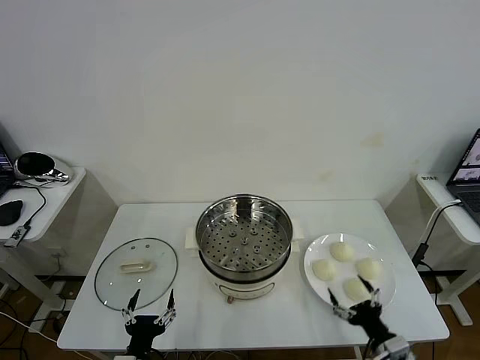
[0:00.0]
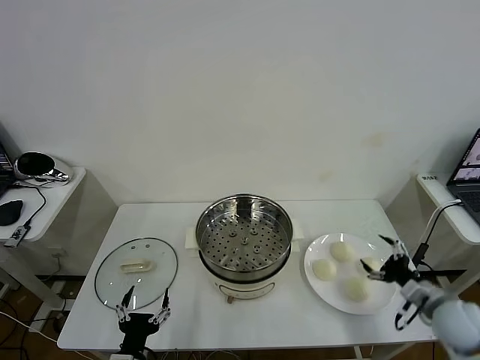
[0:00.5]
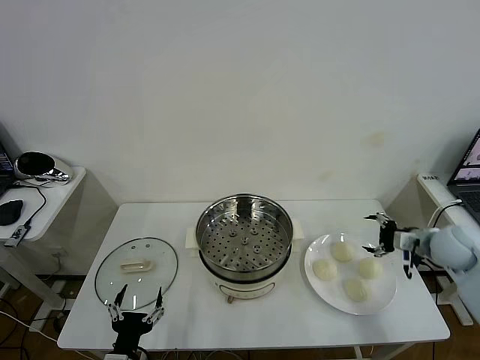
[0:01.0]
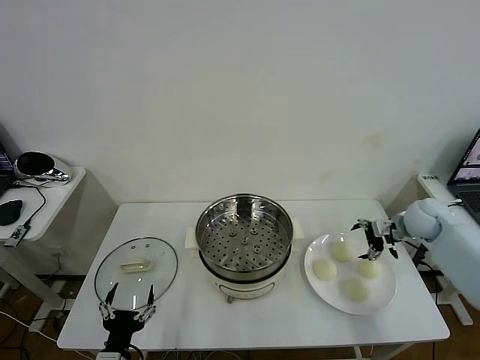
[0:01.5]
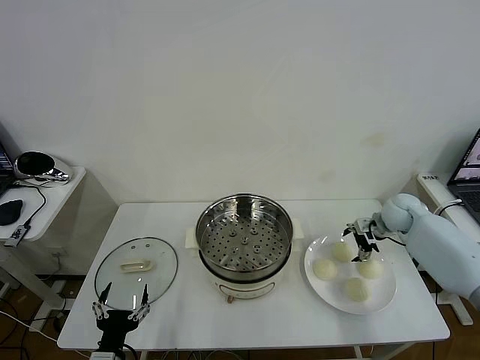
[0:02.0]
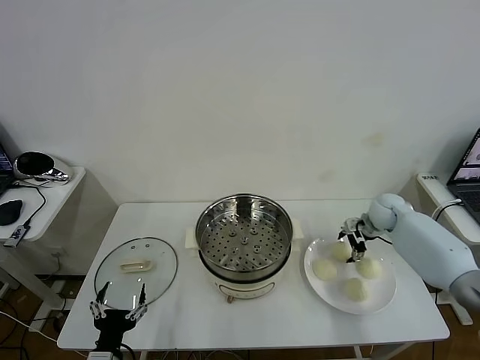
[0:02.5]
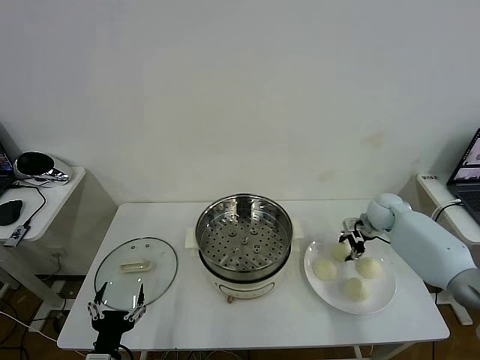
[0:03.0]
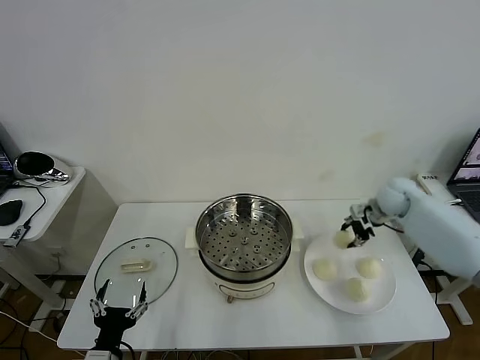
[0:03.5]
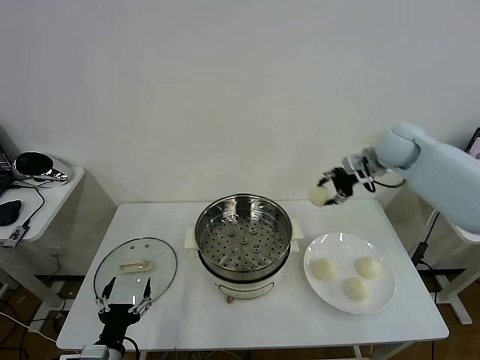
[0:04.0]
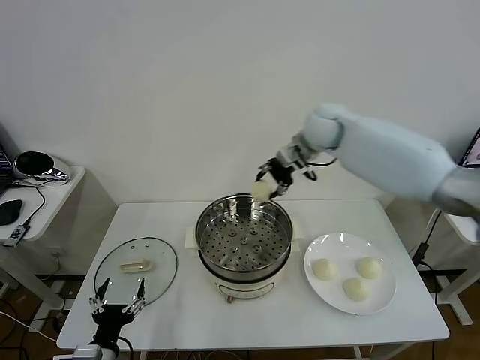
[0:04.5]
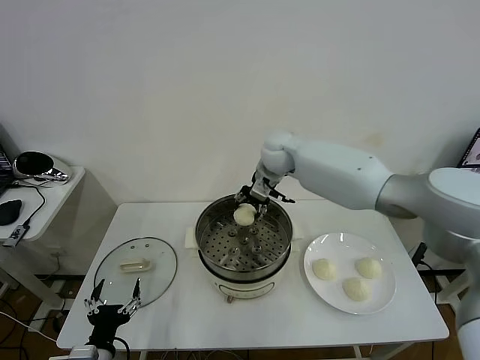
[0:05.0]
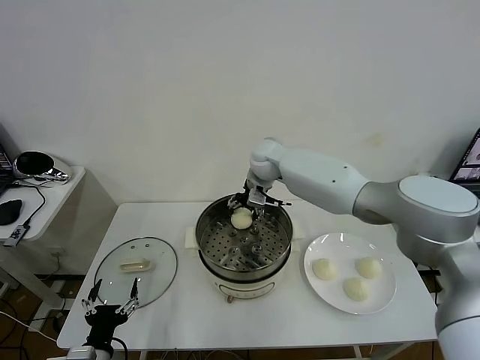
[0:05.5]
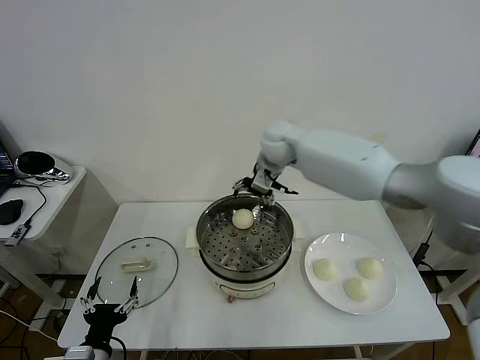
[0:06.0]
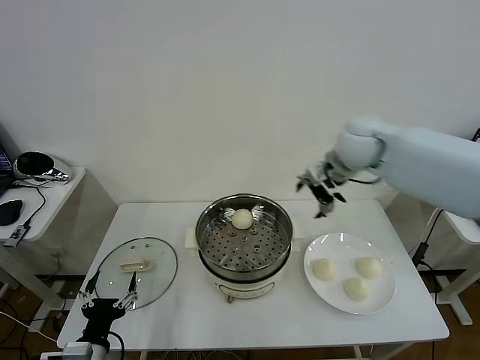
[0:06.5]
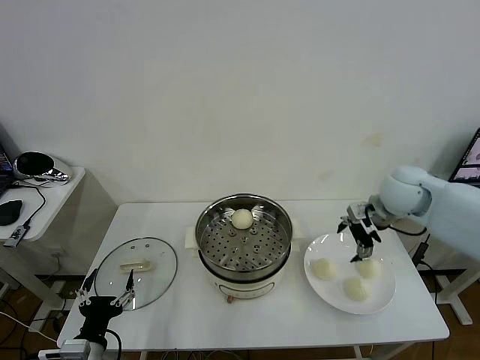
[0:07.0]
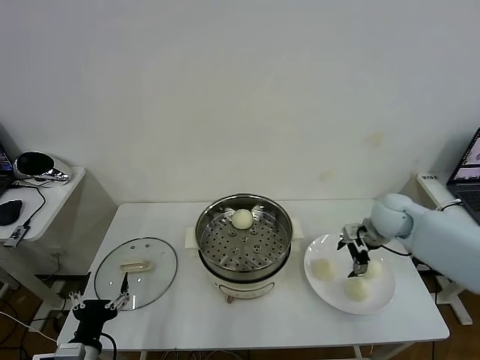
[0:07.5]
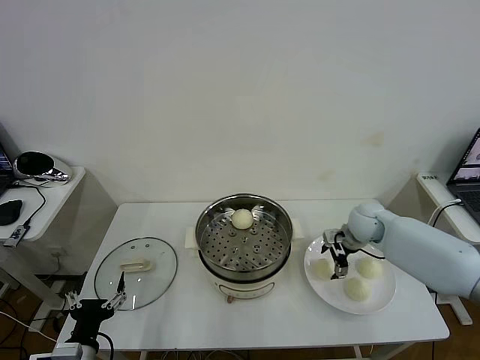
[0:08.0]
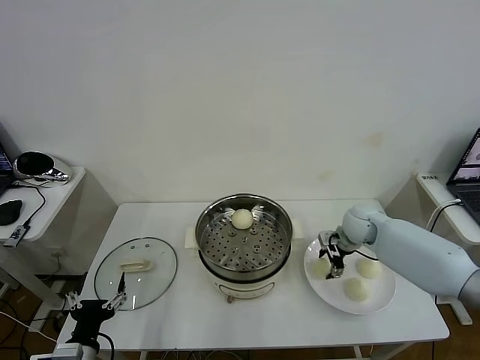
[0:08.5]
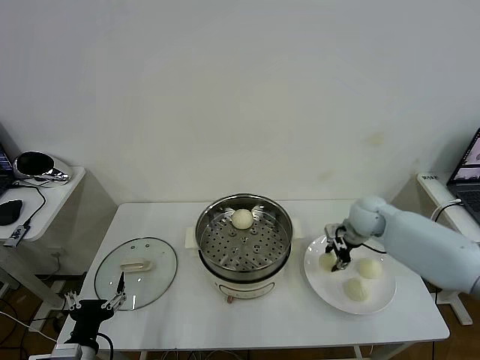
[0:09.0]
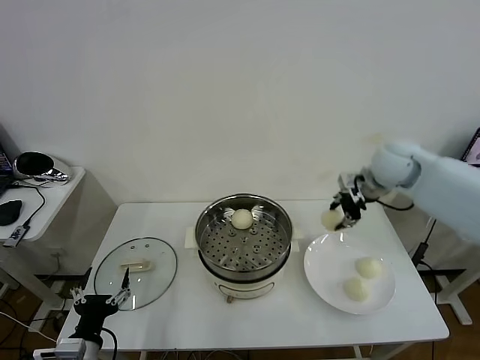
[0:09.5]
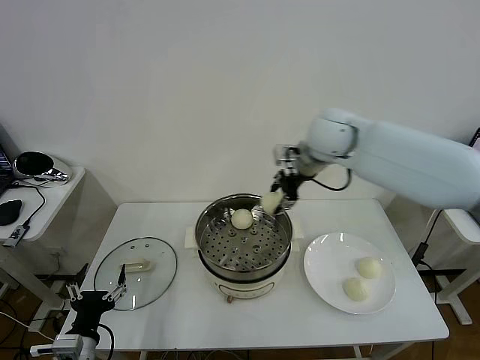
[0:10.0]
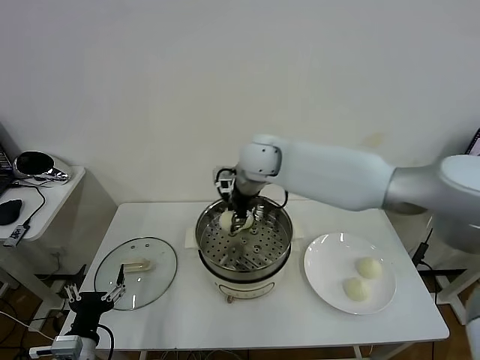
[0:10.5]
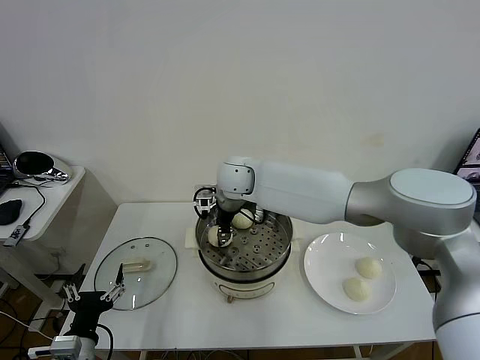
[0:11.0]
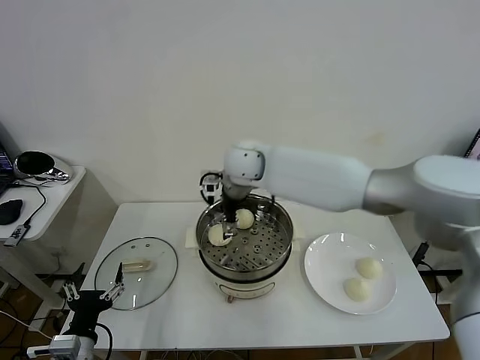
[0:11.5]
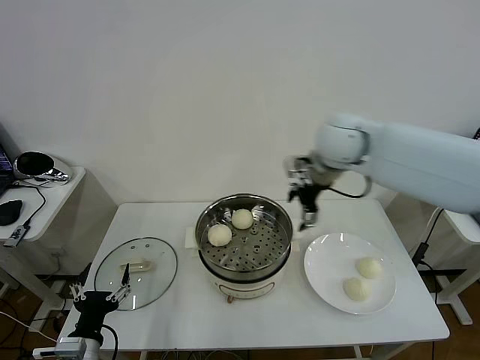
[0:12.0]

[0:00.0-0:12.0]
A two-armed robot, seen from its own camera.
Task of the whole recording: take steamed baozi put them in steamer then cover it.
Step, 0:00.0 to 0:02.5: Grasp the baozi in the plate with right gripper.
Step, 0:03.0 to 0:05.5: Place the baozi on the steamer with right gripper.
Step, 0:06.0 to 0:08.5: Grasp the baozi in the plate with right gripper.
Step, 0:09.0 to 0:11.0: Place the baozi on the steamer with right gripper.
0:02.0 to 0:04.0: The right gripper goes some 25 cm upward and to the left, and closes.
0:04.0 to 0:06.0: The right gripper travels to the left by approximately 20 cm, and opens up.
0:06.0 to 0:08.0: The right gripper goes approximately 30 cm downward and to the right.
0:08.0 to 0:10.0: The right gripper travels upward and to the left by some 30 cm, and closes its fingers.
0:10.0 to 0:12.0: The right gripper travels to the right by approximately 10 cm, and opens its fingers.

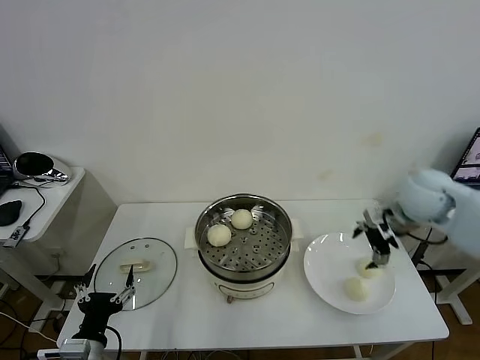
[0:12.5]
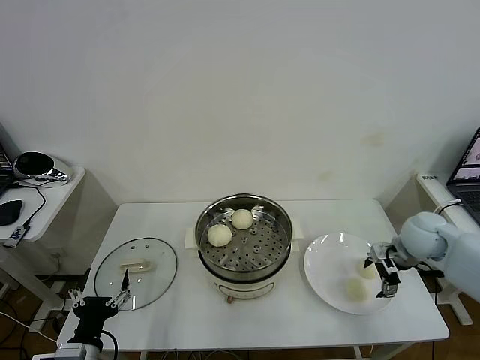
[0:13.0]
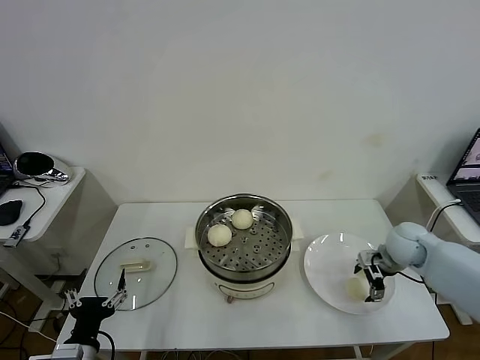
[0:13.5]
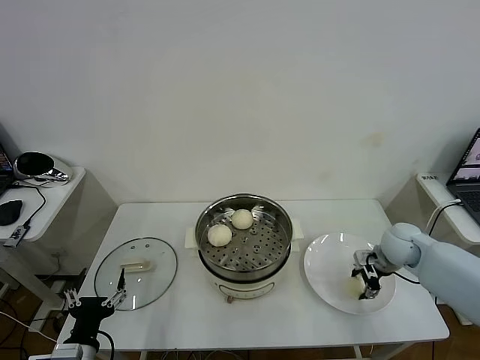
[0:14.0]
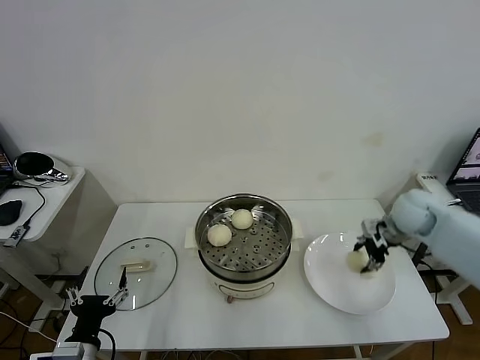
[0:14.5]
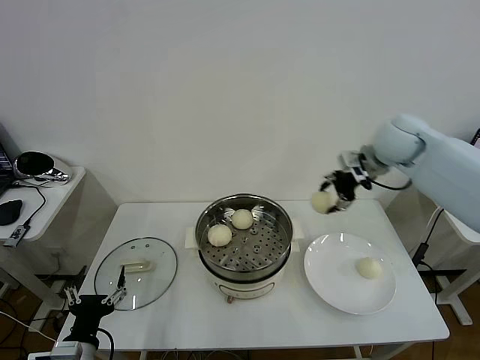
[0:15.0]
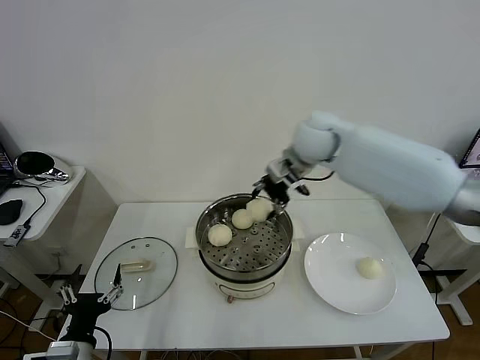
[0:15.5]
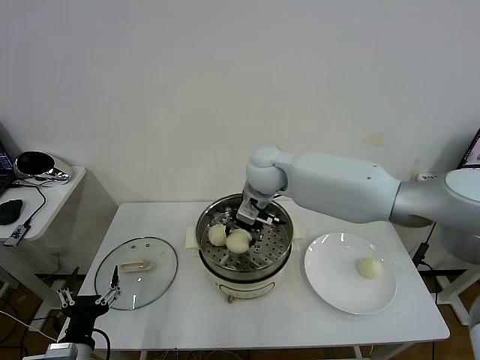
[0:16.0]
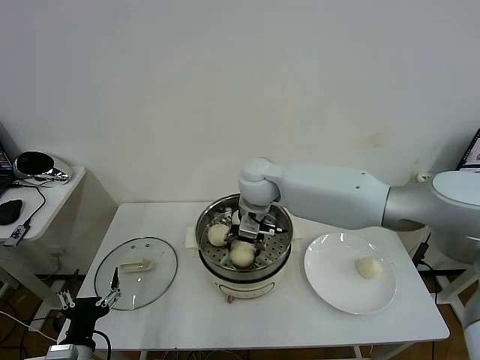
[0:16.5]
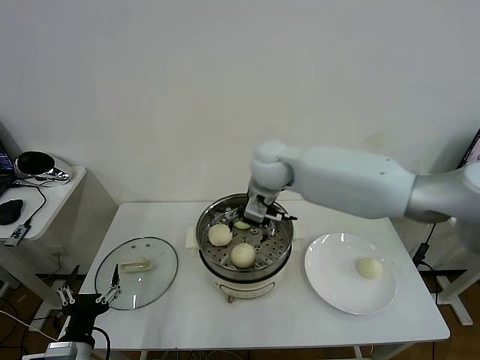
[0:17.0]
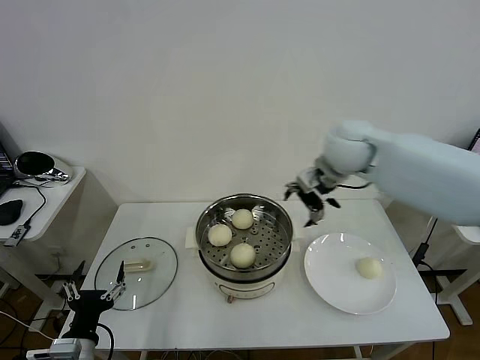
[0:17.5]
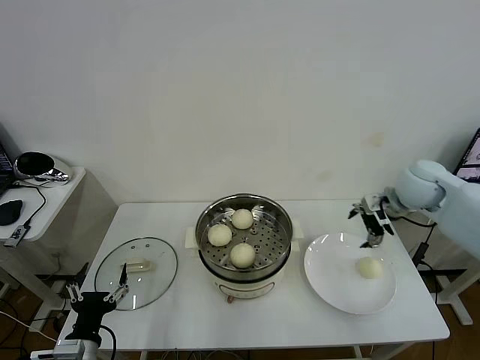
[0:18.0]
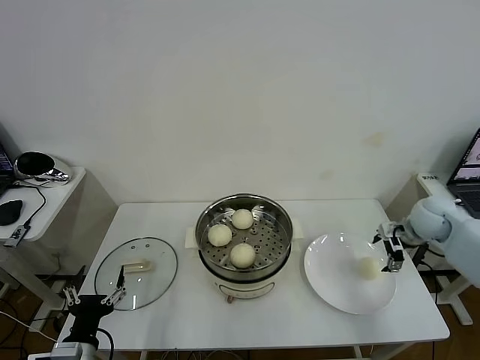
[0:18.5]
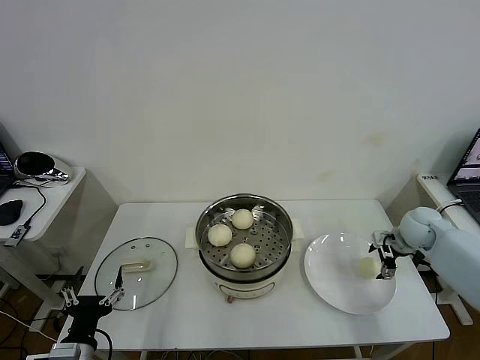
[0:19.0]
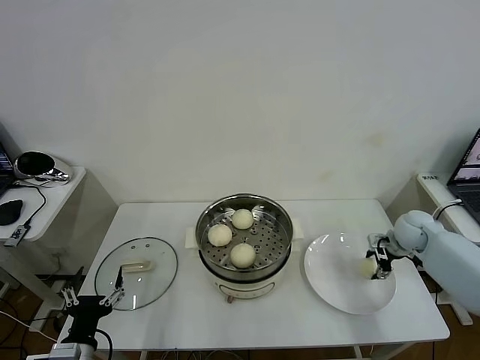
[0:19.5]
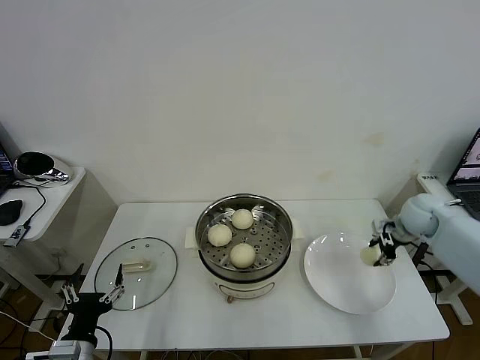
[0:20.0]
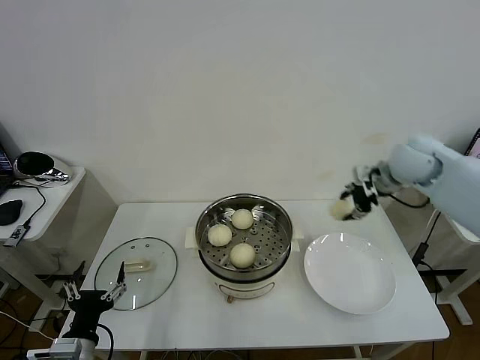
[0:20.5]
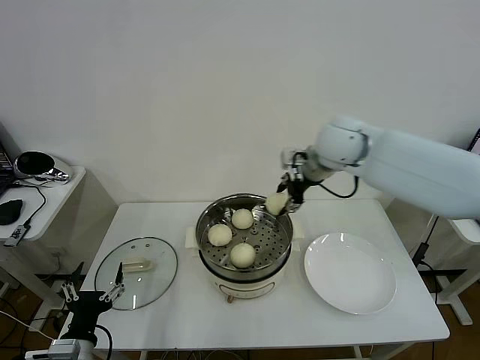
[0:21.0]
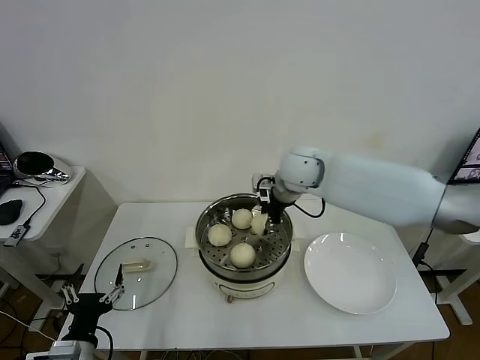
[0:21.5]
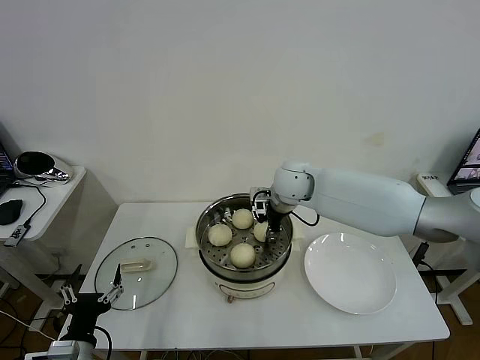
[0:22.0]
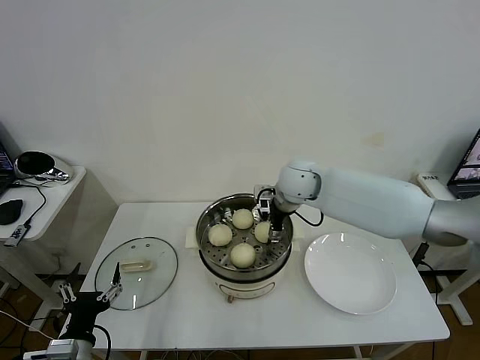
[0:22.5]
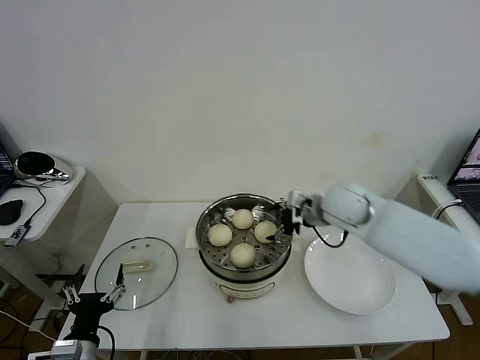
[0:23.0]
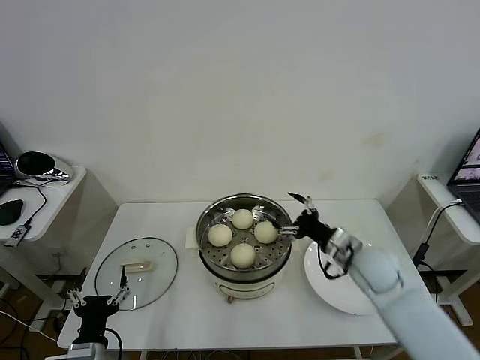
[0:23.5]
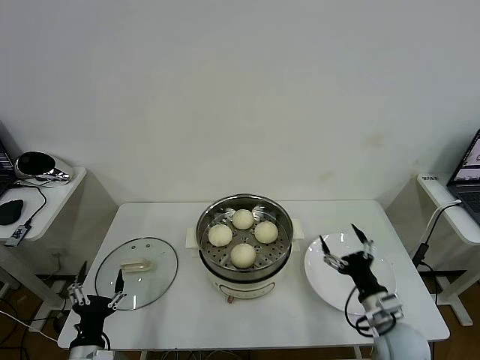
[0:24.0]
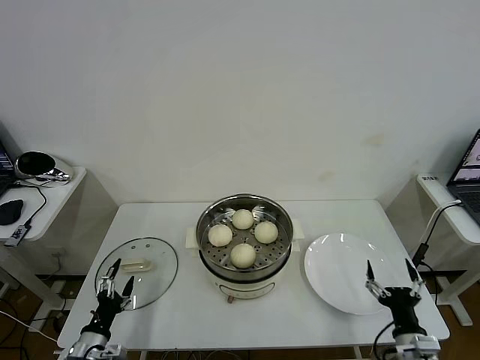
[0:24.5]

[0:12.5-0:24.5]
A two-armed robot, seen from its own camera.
Task of the whole recording: take steamed baozi put them in steamer then cover it.
Step, 0:12.5 to 0:14.0: Grasp the baozi in the plate with right gripper.
Step, 0:14.5 to 0:16.5: Place the baozi on the steamer with right gripper.
Step, 0:17.5 to 0:19.5: Grasp the baozi in the plate with right gripper.
Step, 0:20.0 to 0:22.5: Place the baozi on the steamer with right gripper.
0:12.5 to 0:14.5: The right gripper travels downward and back again, about 15 cm each way, and closes up.
0:14.5 to 0:16.5: The right gripper heads to the left, covering roughly 35 cm, and opens its fingers.
0:16.5 to 0:18.5: The right gripper travels to the right by about 40 cm.
0:18.5 to 0:20.5: The right gripper heads upward and to the left, covering approximately 20 cm, and closes.
0:20.5 to 0:22.5: The right gripper is displaced to the left by roughly 20 cm, and opens its fingers.
0:22.5 to 0:24.5: The left gripper moves downward, about 10 cm; the right gripper goes about 50 cm backward, downward and to the right.

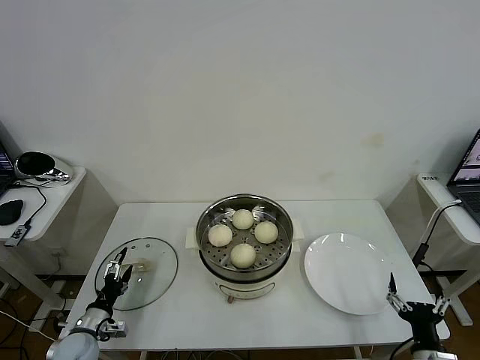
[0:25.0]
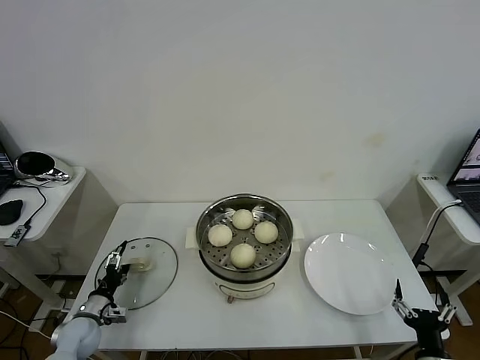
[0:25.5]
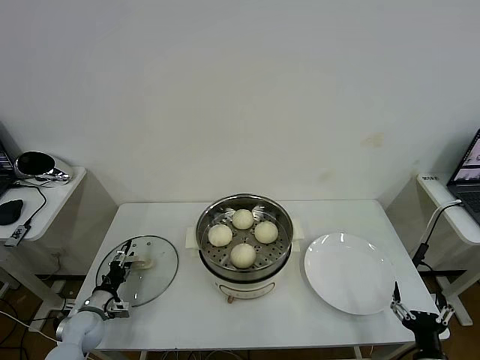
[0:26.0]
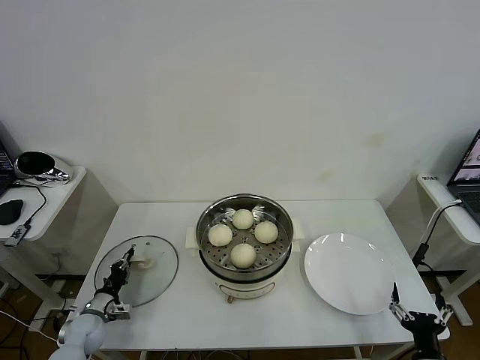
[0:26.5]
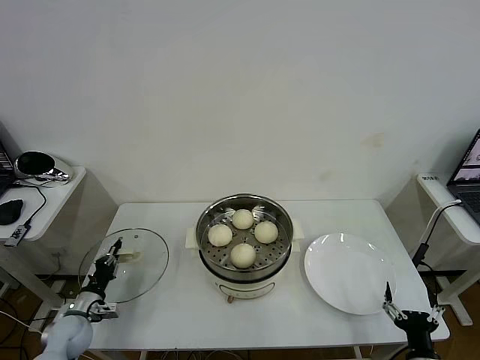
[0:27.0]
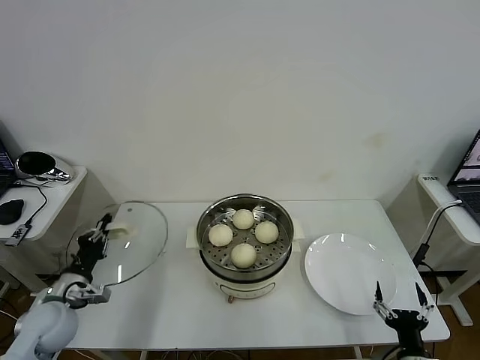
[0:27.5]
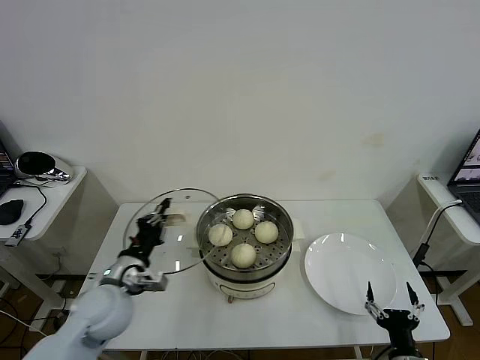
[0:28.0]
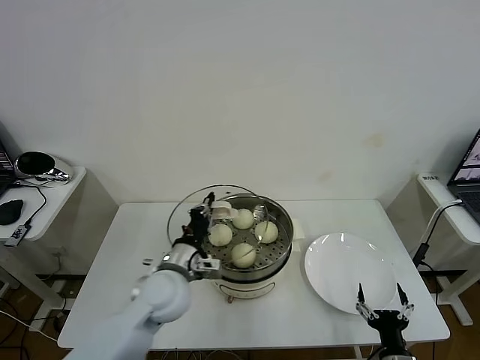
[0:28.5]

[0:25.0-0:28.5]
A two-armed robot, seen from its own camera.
Task of the whole recording: take steamed baozi put them in steamer then cover it.
0:25.0 to 0:27.0: The left gripper changes place by about 5 cm, and closes.
0:27.0 to 0:28.5: The left gripper shifts some 35 cm to the right and upward.
